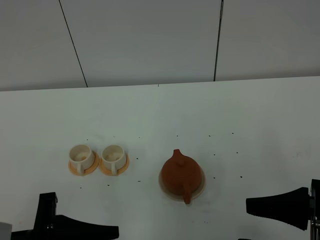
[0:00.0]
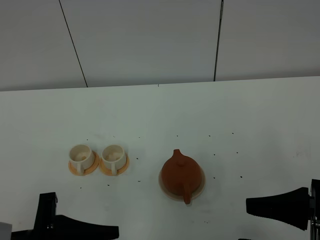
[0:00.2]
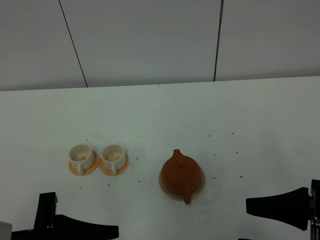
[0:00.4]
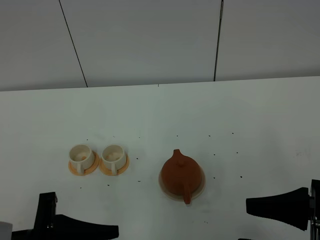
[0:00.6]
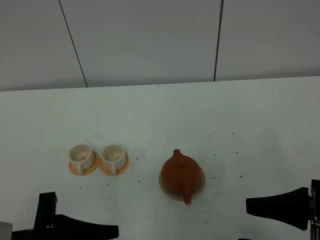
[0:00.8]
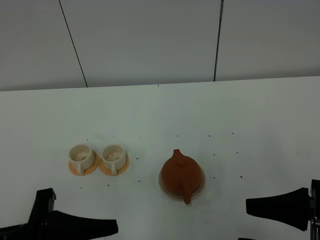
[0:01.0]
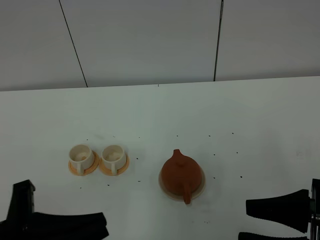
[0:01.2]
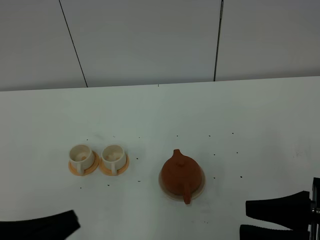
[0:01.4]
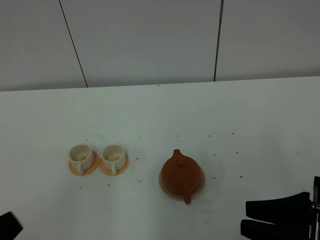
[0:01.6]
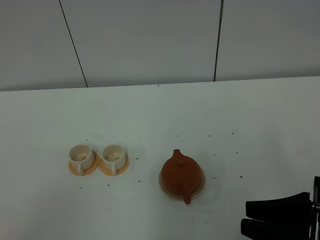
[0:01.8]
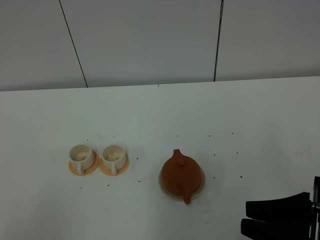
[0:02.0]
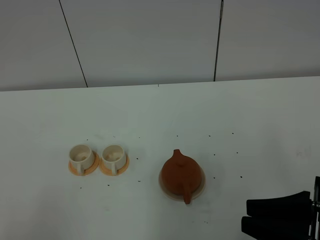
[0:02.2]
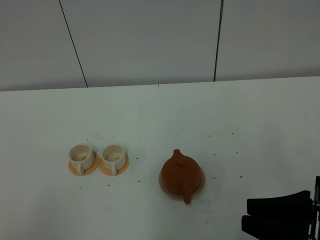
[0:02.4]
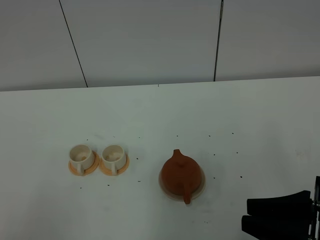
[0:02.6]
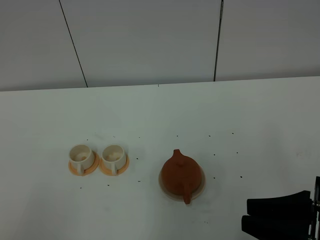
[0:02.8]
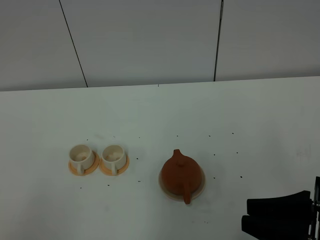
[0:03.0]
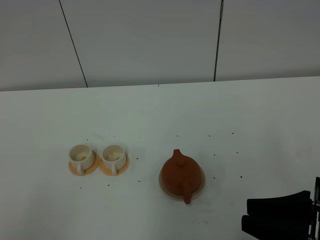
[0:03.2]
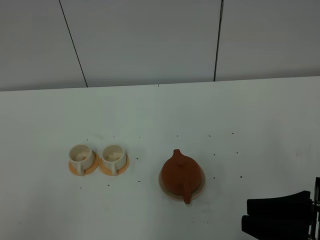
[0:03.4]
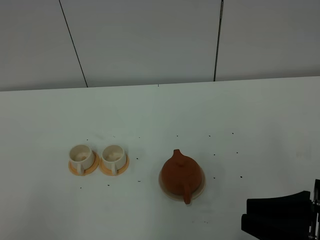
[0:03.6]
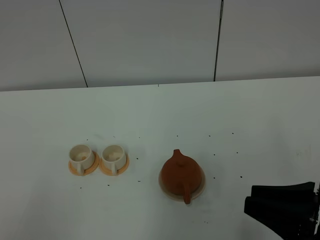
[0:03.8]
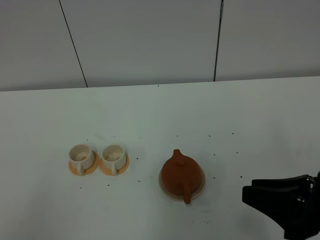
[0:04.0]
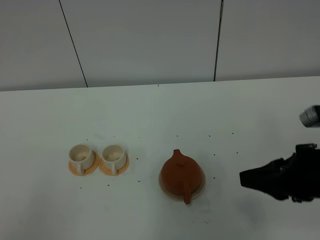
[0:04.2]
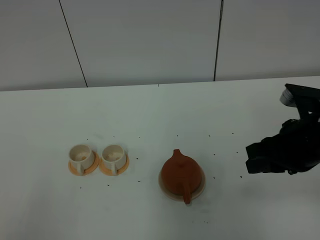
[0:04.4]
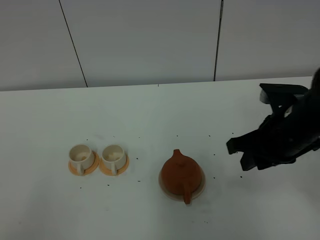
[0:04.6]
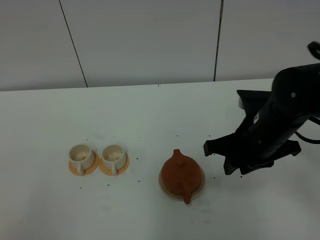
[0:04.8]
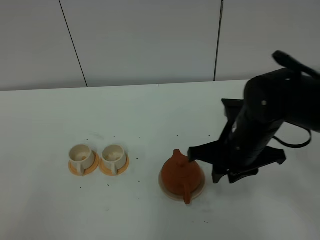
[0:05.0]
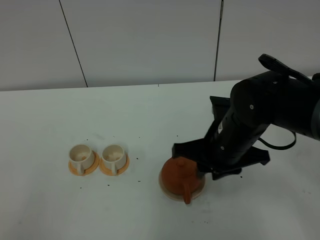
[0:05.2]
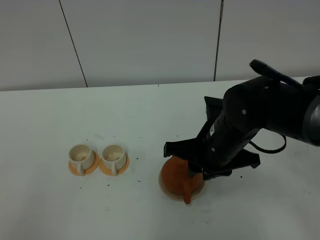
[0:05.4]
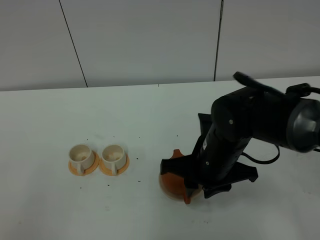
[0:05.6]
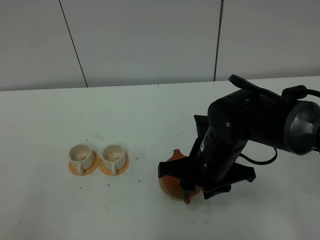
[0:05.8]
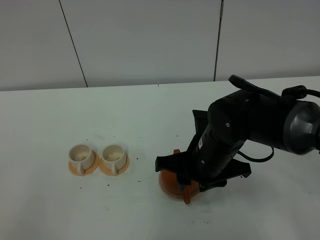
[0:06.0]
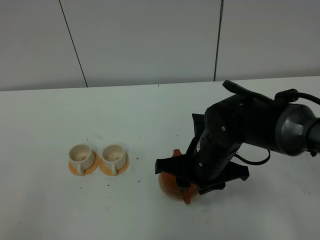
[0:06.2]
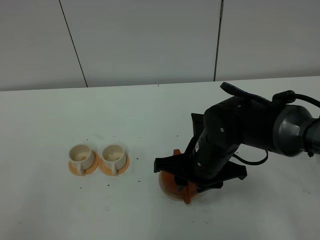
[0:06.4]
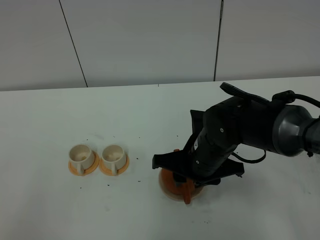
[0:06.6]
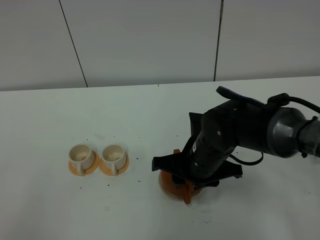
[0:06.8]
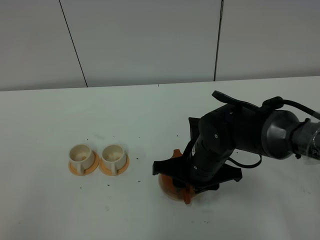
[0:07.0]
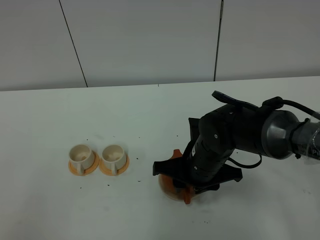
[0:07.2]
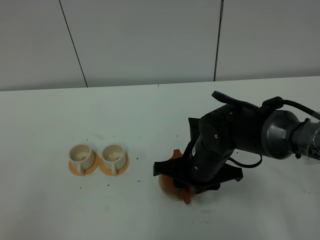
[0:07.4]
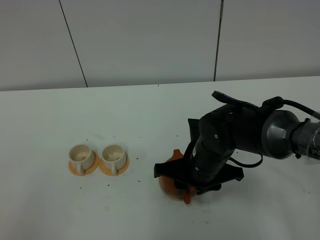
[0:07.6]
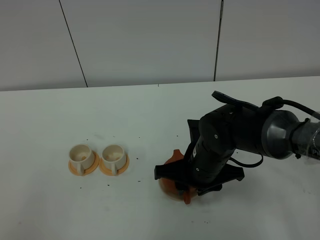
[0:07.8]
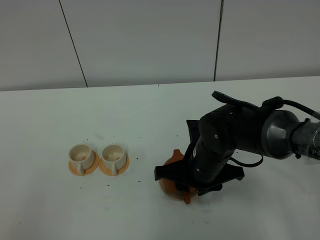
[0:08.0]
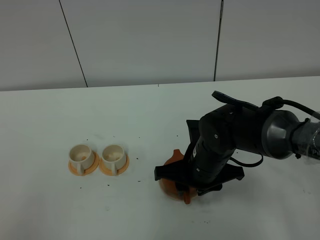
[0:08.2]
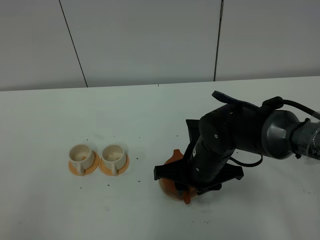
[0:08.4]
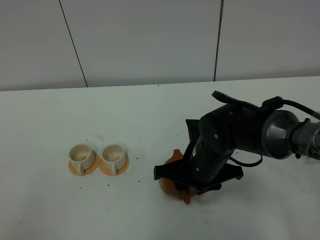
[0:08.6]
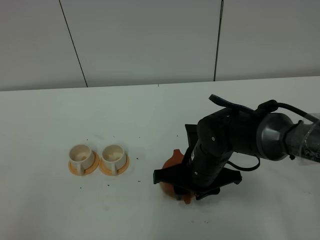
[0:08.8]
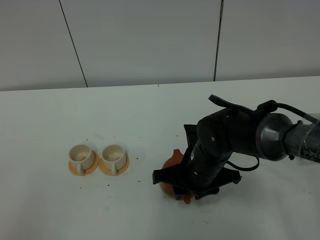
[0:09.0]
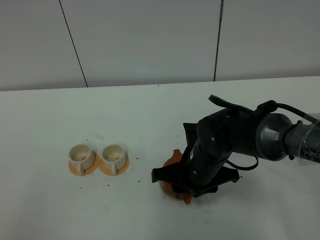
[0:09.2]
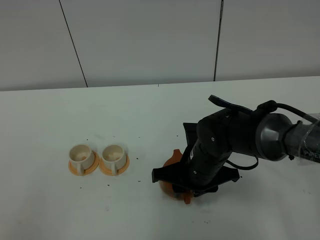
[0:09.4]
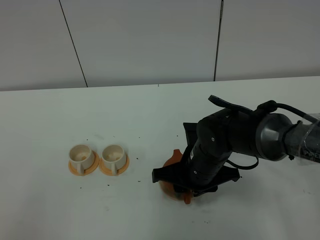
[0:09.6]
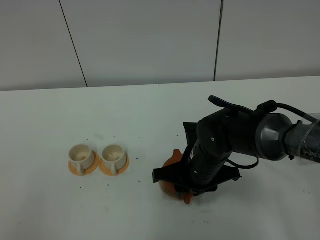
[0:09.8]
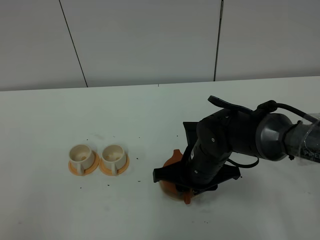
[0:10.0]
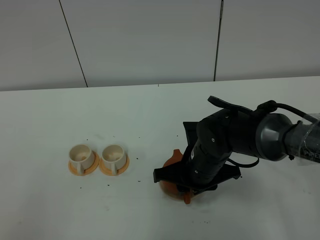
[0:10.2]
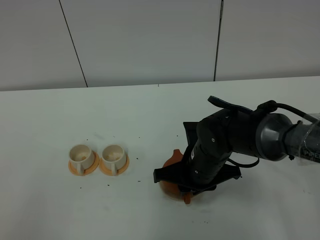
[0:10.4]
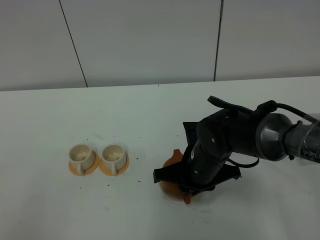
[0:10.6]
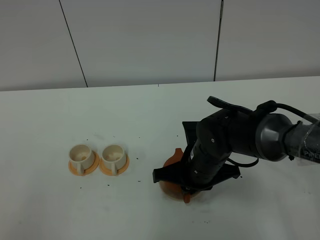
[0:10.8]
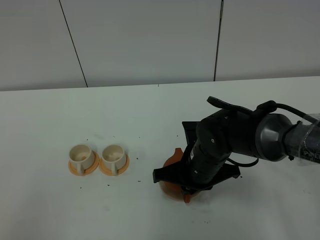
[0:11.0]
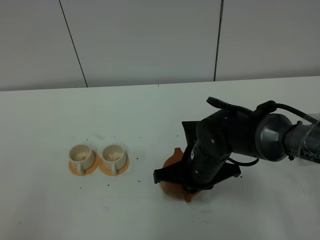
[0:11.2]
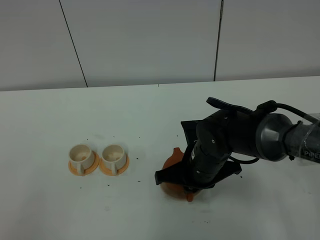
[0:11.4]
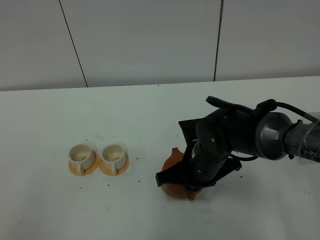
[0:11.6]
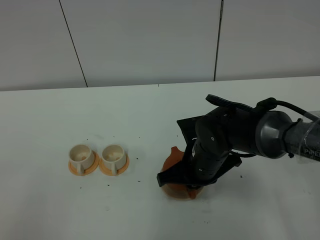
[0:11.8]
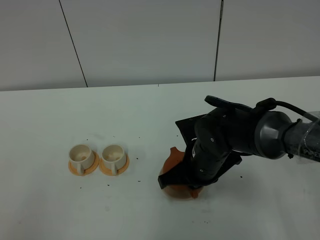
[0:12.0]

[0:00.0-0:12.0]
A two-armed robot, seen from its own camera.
Task of the whole recording: grasp the brown teapot and pour the tea into the two white teacups one by one, put the brown teapot back in its original place.
0:00.0 to 0:01.6: The right gripper closes up. Meanwhile the left gripper moves upward and backward, approximately 10 cm, and closes.
0:01.6 to 0:03.0: The left gripper ends up some 5 cm from where it was.
0:03.0 to 0:04.4: The right gripper heads forward, covering approximately 15 cm.
0:04.4 to 0:06.0: The right gripper is displaced to the left by approximately 15 cm.
0:06.0 to 0:07.6: The grippers make only small movements.
0:07.6 to 0:09.0: Both grippers stay put.
0:09.0 to 0:10.4: The right gripper closes.
0:10.4 to 0:12.0: The right gripper closes.

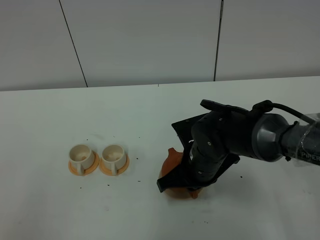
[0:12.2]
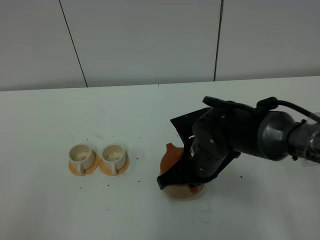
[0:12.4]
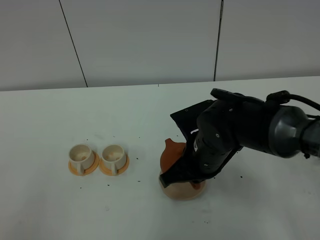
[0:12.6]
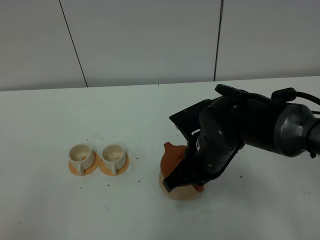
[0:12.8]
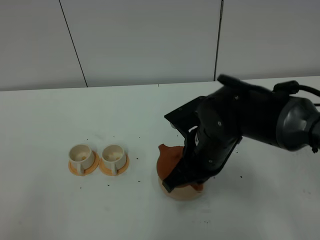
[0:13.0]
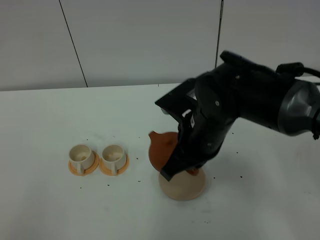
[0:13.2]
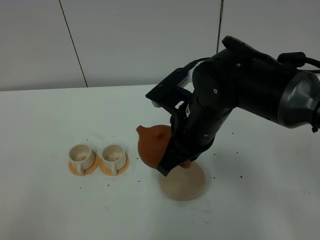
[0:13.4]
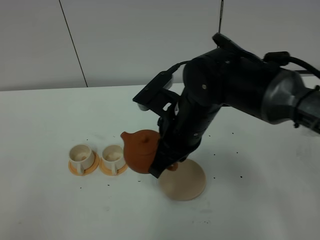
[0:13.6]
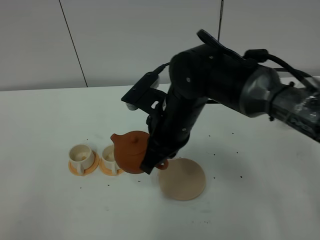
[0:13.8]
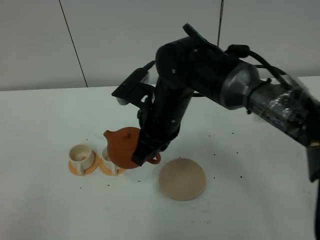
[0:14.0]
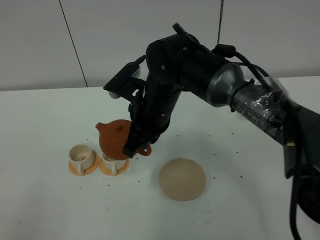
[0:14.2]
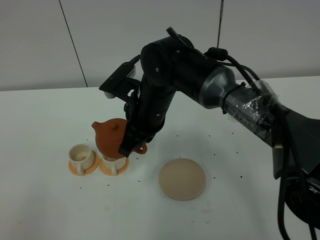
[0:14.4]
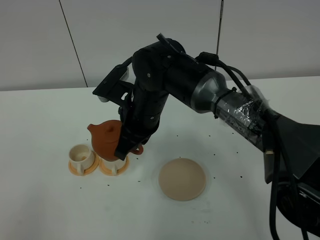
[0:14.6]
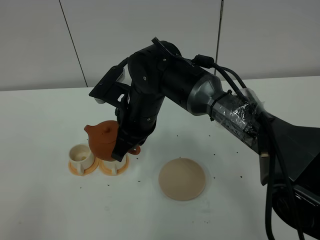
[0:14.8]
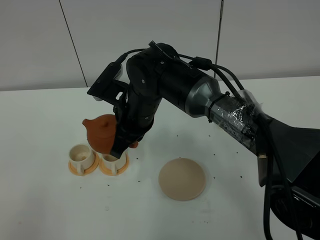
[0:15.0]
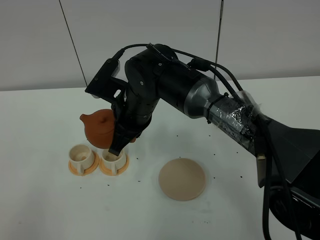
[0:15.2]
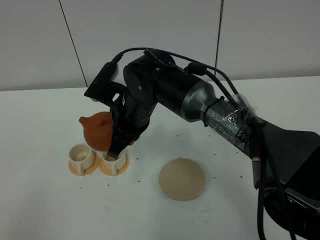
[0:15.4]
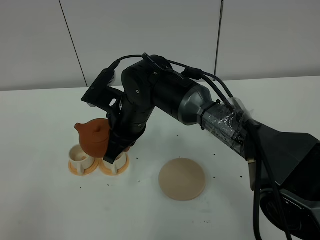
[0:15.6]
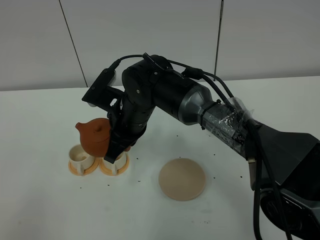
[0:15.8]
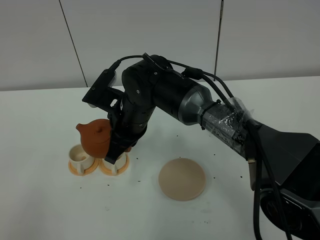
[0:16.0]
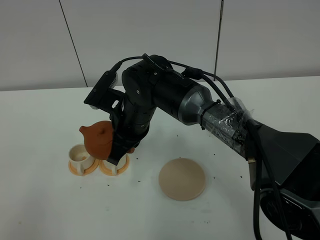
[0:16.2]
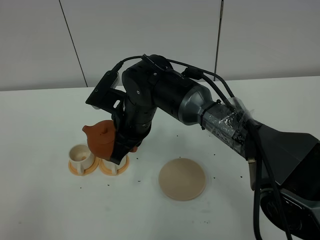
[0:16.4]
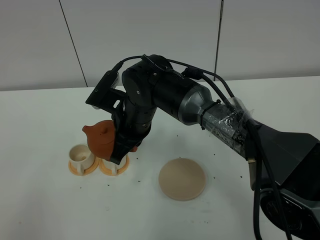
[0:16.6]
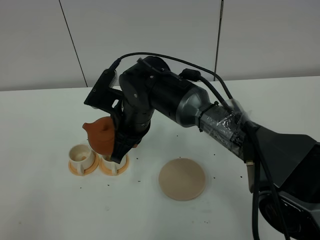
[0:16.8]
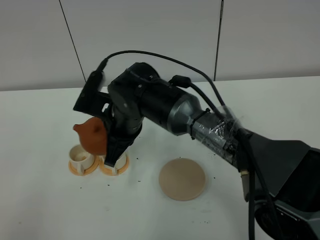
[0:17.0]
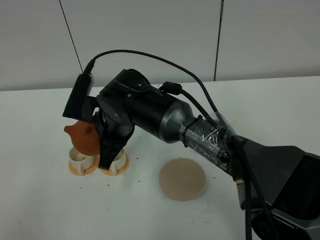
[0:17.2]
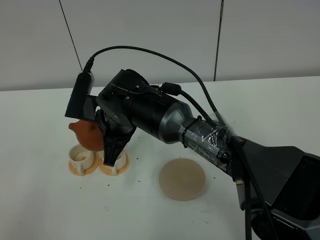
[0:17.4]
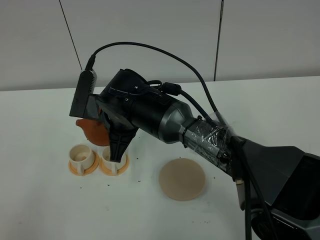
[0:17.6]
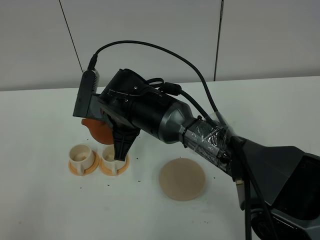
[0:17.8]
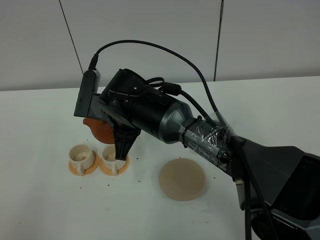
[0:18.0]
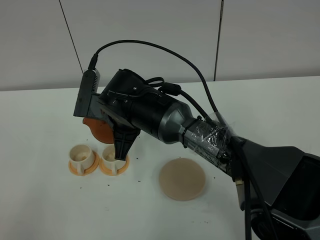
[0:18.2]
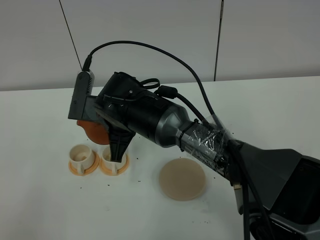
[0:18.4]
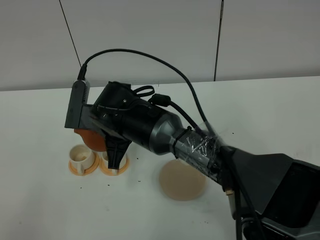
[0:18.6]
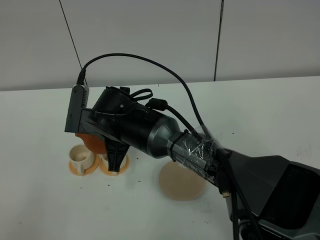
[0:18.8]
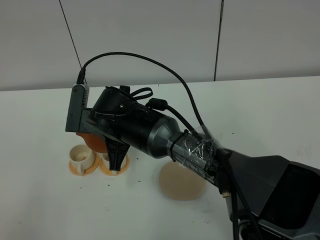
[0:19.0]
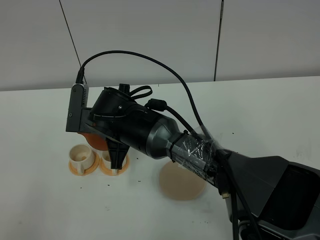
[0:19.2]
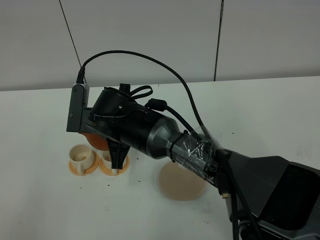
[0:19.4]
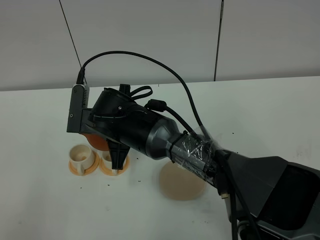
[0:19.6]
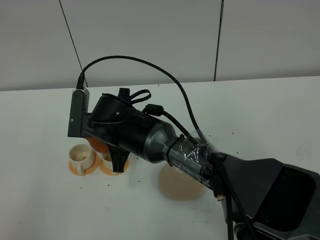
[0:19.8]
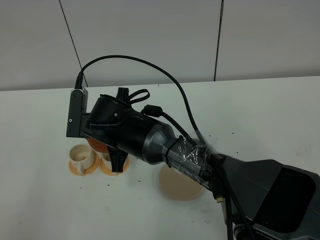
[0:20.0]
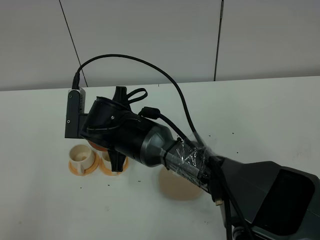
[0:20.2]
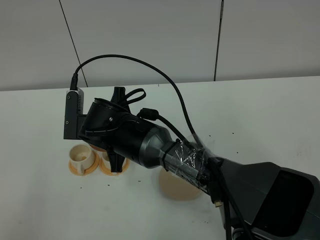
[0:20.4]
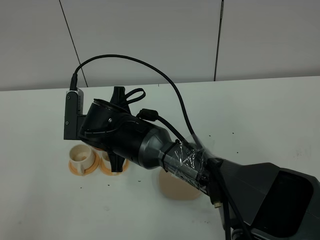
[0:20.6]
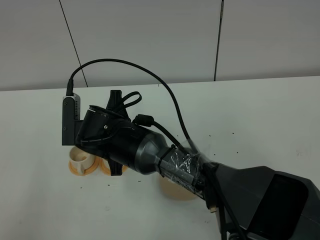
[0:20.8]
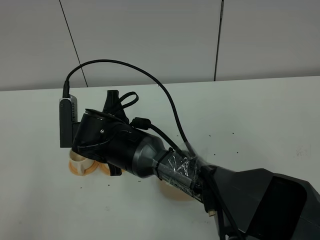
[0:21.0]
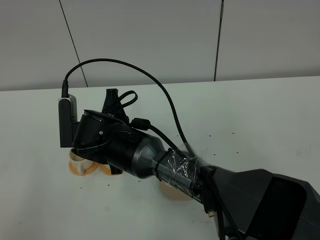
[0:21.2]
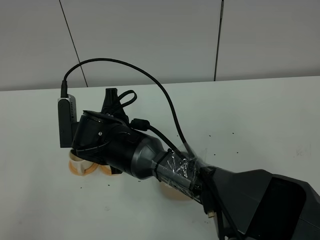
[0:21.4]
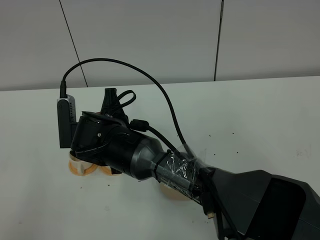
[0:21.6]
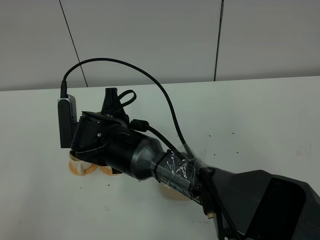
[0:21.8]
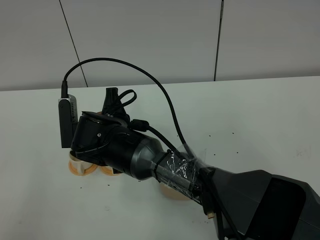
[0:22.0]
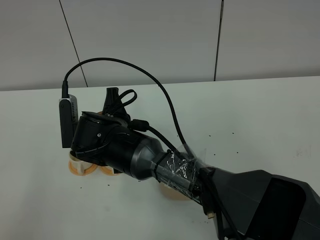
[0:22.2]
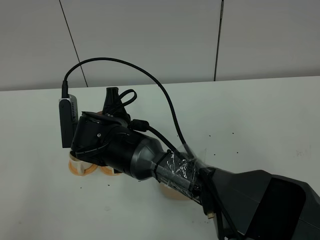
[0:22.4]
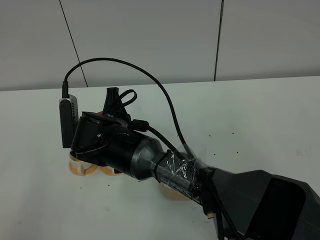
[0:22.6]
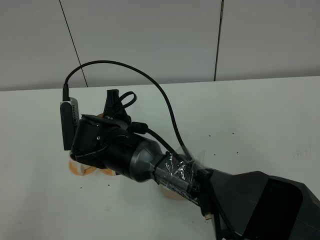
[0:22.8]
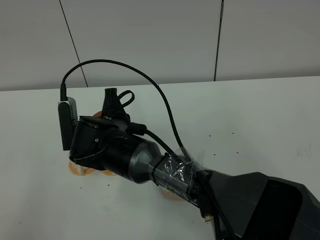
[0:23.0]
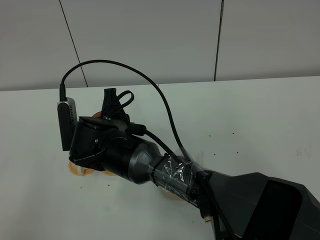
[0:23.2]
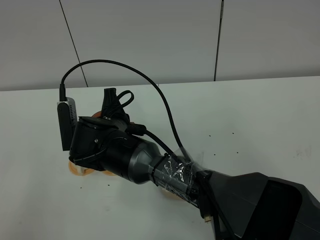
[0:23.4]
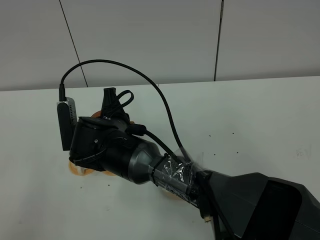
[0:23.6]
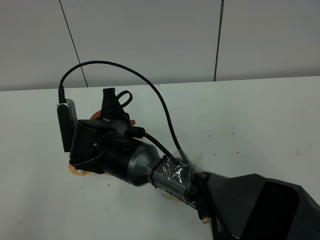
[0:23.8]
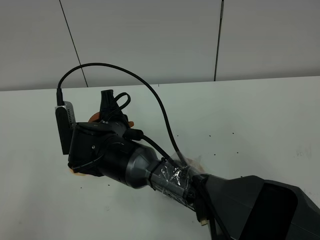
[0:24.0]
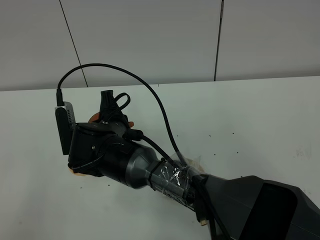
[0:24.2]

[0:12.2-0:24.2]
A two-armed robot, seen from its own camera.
Task of the whole recording: grasp the brown teapot and pour the tea into the two white teacups one by one, put the brown teapot back in its original place.
0:12.2 to 0:13.8: The right gripper goes approximately 10 cm upward.
0:13.8 to 0:15.2: The right gripper moves to the left, roughly 5 cm.
0:15.2 to 0:16.6: There are only small adjustments of the grippers.
0:18.2 to 0:21.2: The grippers stay close to where they were, moving slightly.
0:21.2 to 0:22.6: Neither gripper changes place.
0:22.6 to 0:24.2: The grippers stay close to where they were, moving slightly.
